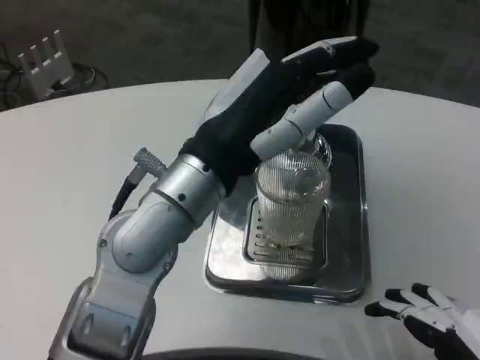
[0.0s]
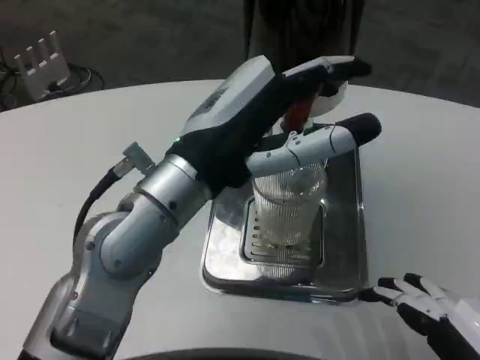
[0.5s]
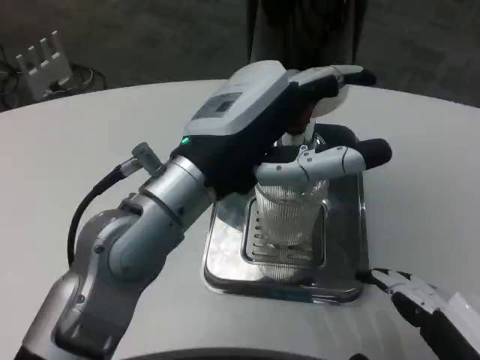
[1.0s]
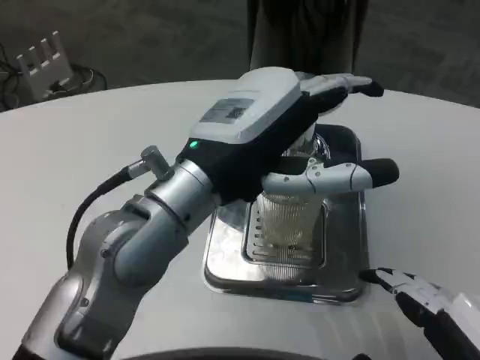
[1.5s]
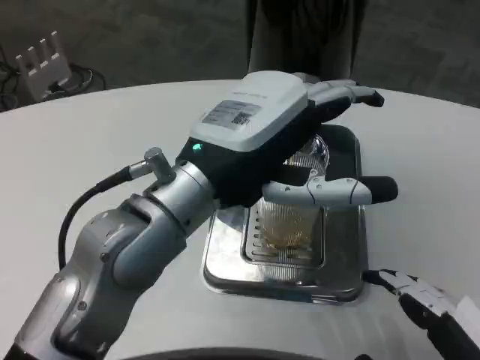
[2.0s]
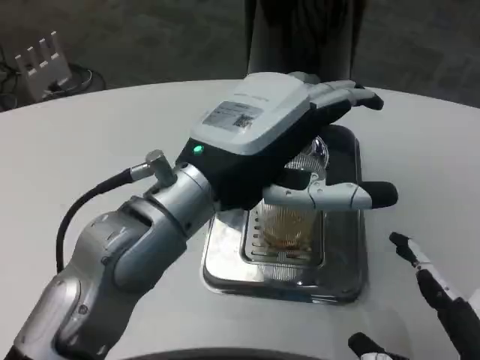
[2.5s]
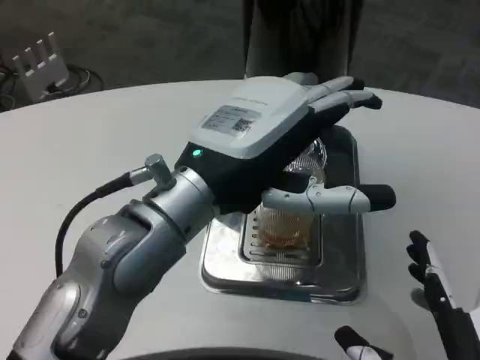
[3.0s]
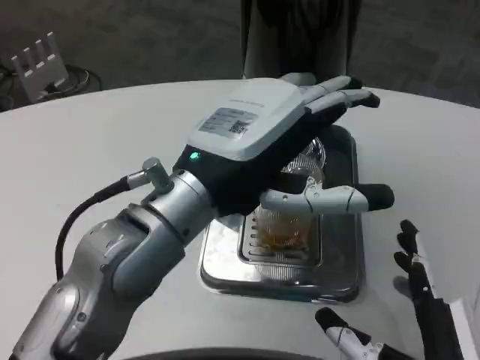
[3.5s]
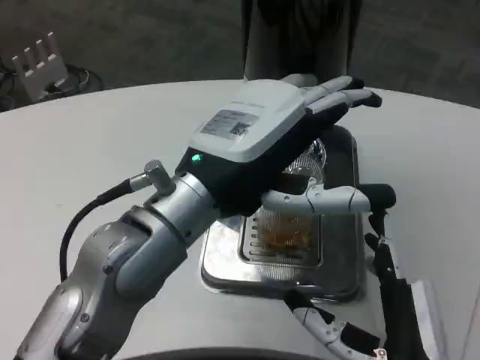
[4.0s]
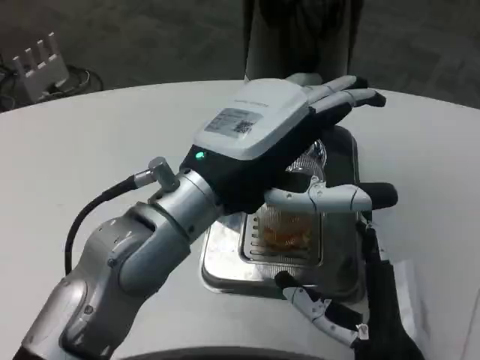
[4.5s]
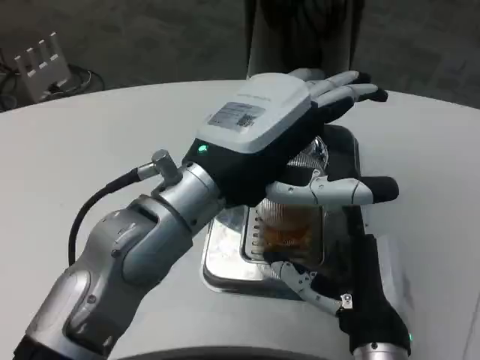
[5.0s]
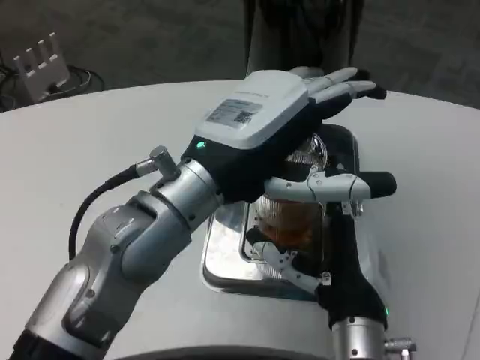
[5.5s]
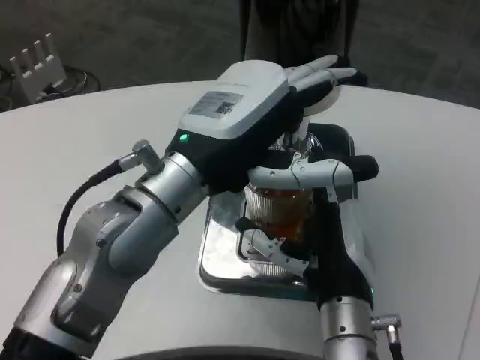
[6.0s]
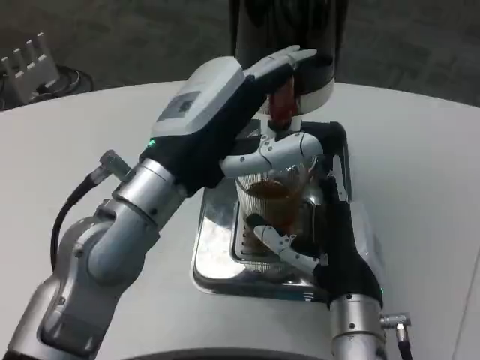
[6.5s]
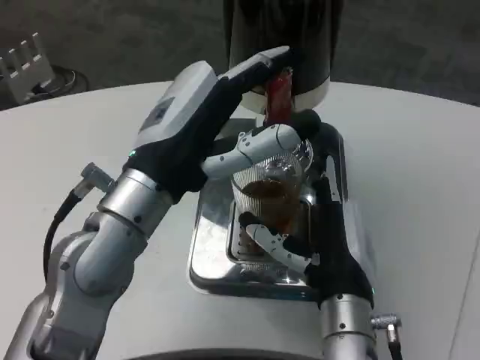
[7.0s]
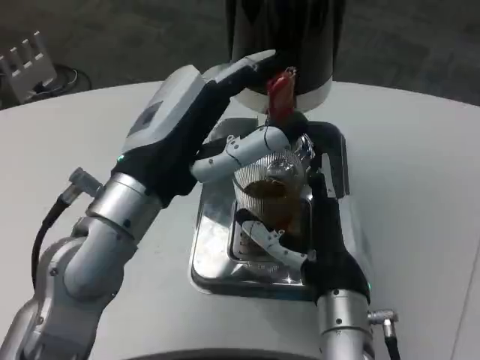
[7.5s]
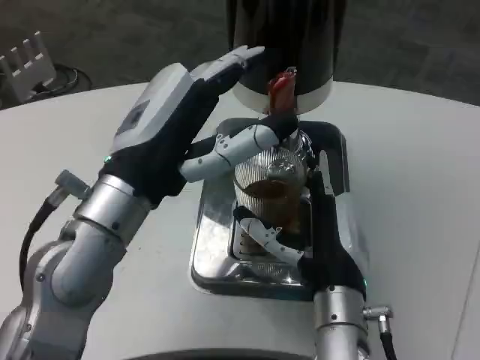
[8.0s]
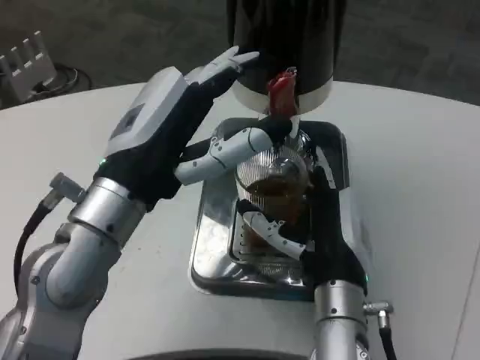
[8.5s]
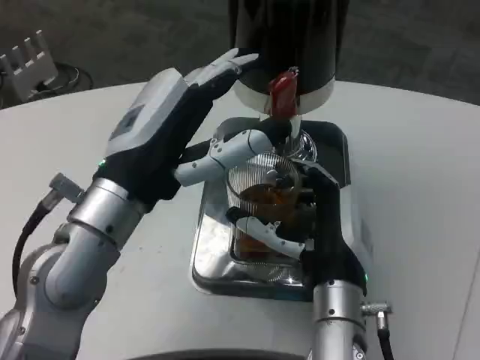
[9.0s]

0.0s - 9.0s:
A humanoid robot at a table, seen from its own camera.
Task of the whole recording: Grasp the cup under the faucet to collect the drink, then remove the cup.
2.0s - 4.5s: The right hand goes some 15 cm to the left, forward and downward.
4.5s - 7.0s: The right hand moves forward, some 5 cm.

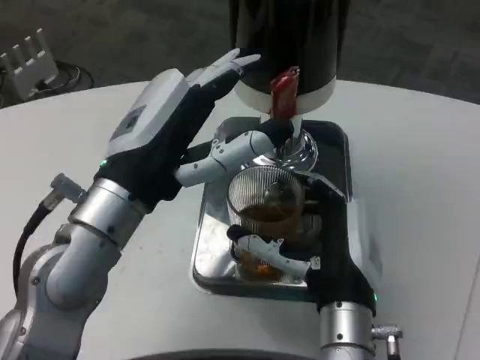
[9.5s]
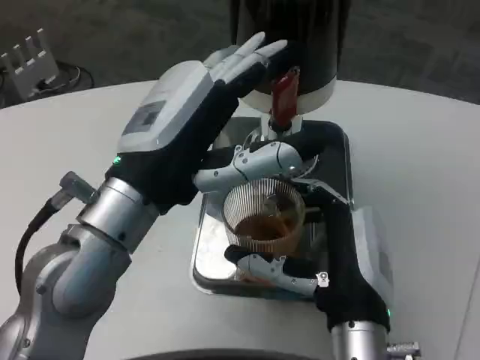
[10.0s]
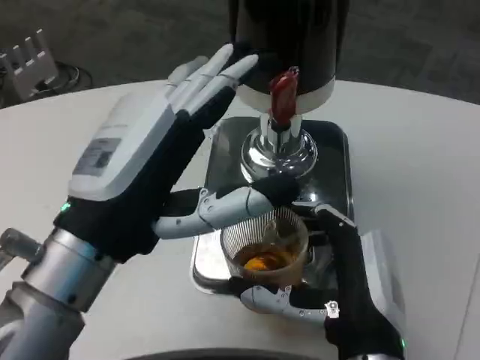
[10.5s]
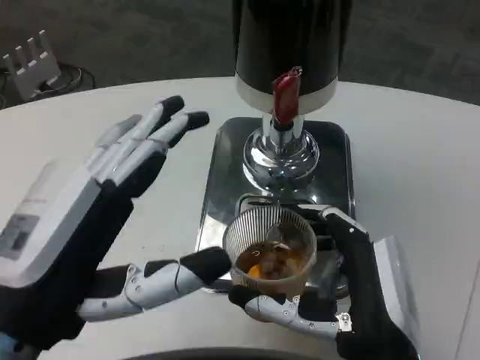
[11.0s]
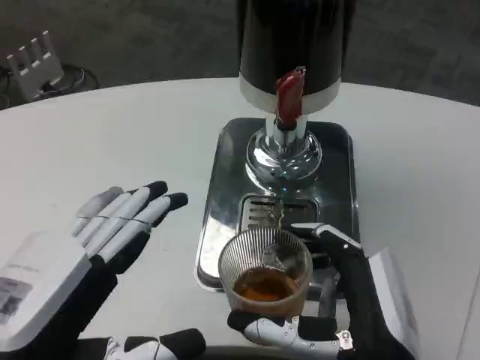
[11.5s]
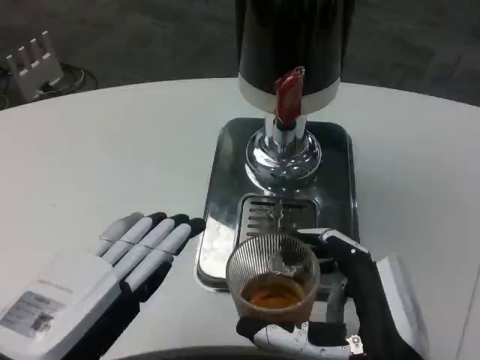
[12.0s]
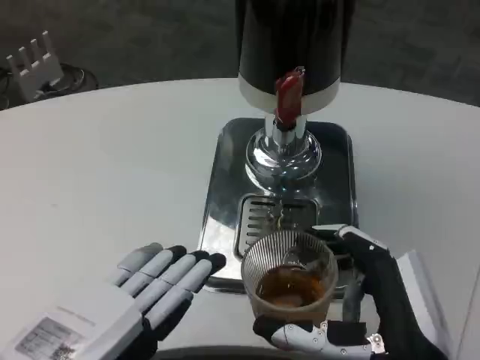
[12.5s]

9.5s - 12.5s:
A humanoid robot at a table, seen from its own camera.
Task of the whole recording: Grasp the cup under the faucet to collect the drink, then remove the cup.
9.5s - 11.0s: The left hand goes some 15 cm backward and to the left. The right hand heads backward, covering roughly 5 cm.

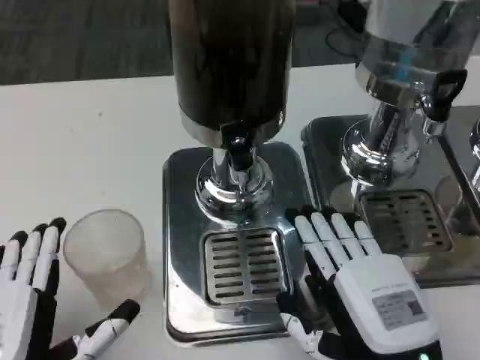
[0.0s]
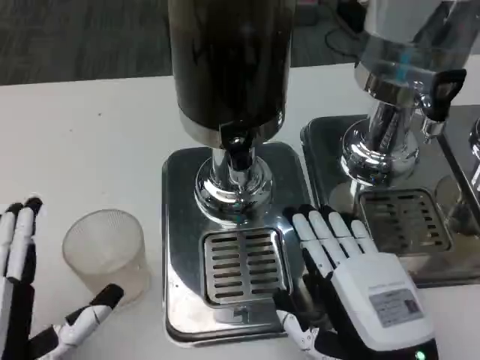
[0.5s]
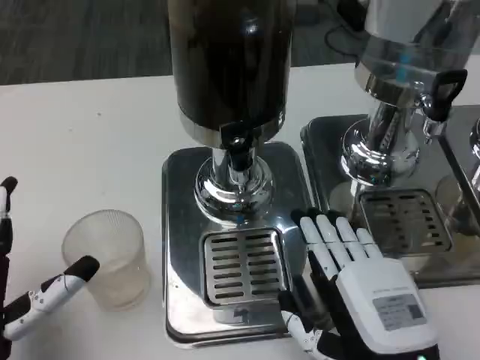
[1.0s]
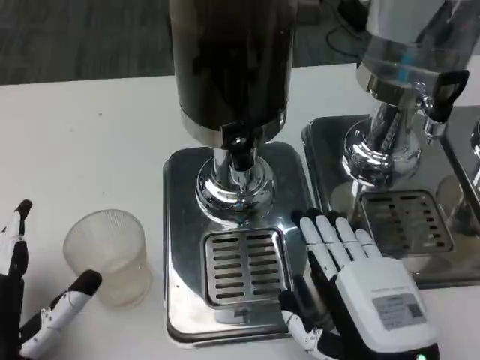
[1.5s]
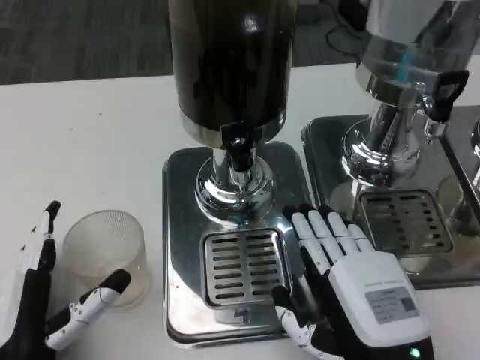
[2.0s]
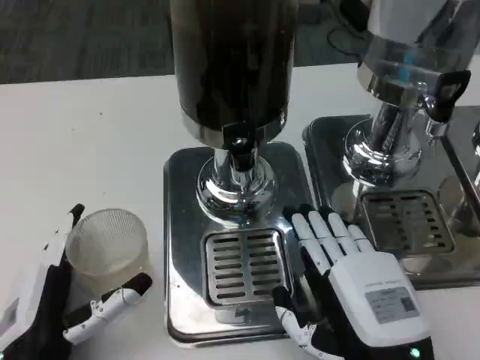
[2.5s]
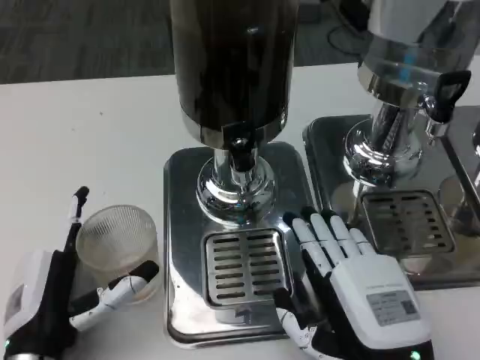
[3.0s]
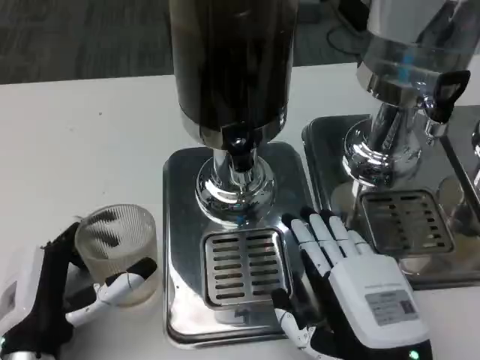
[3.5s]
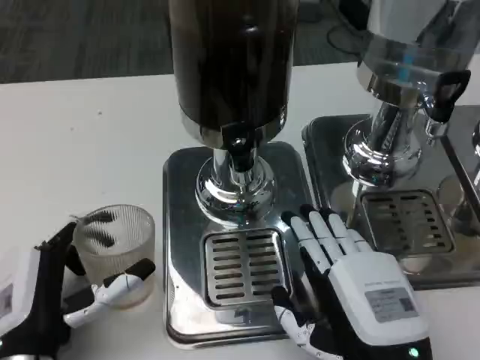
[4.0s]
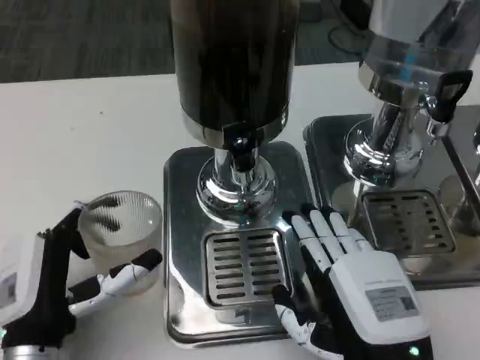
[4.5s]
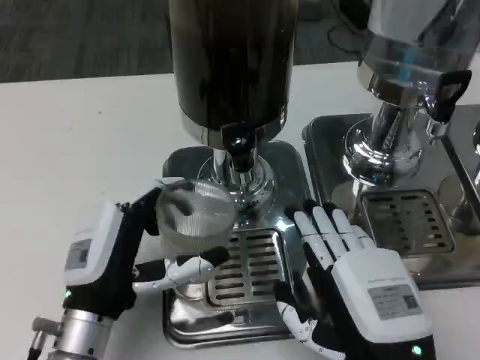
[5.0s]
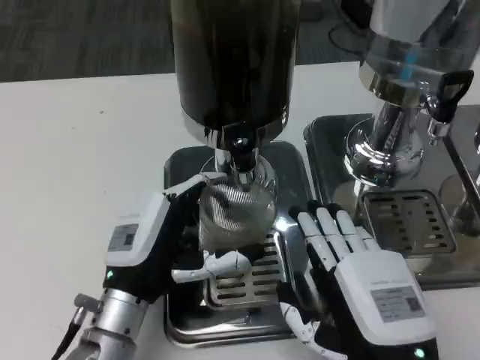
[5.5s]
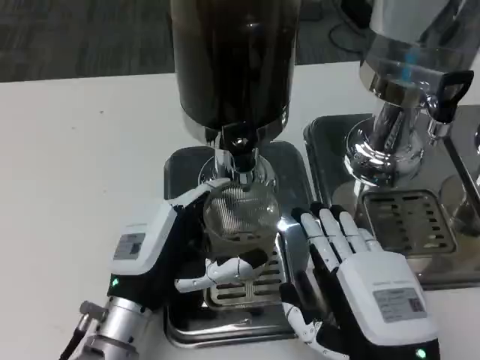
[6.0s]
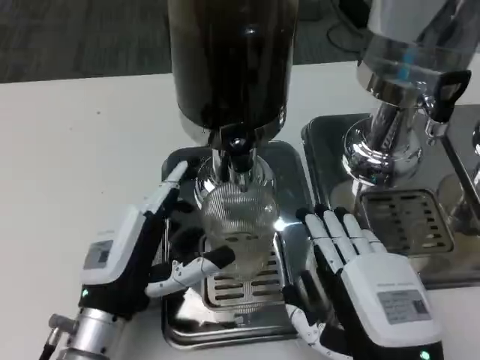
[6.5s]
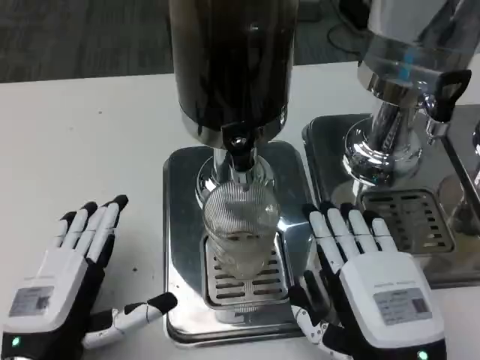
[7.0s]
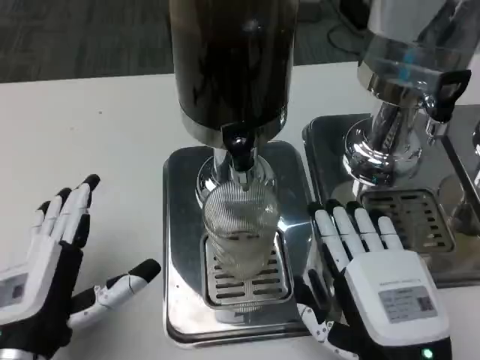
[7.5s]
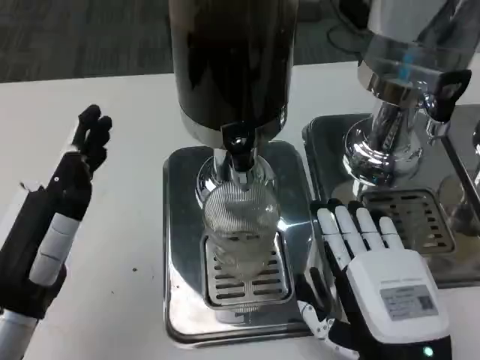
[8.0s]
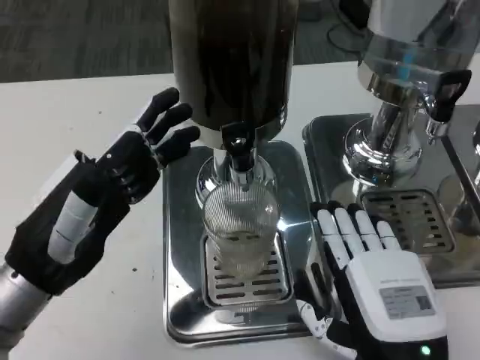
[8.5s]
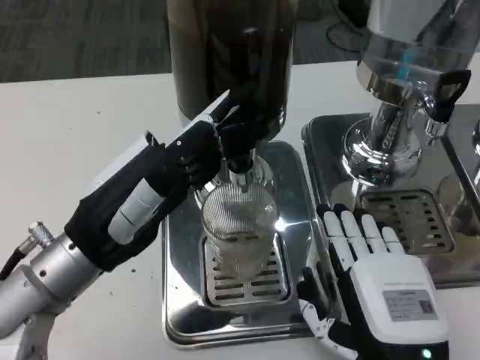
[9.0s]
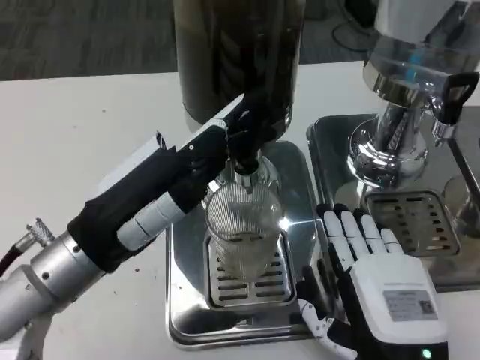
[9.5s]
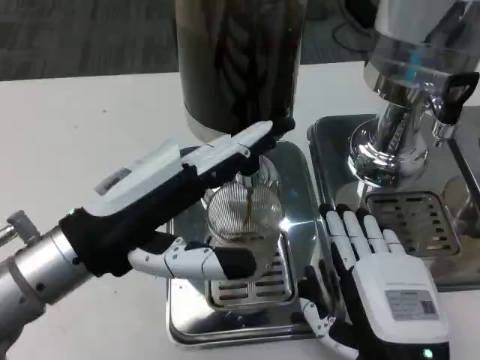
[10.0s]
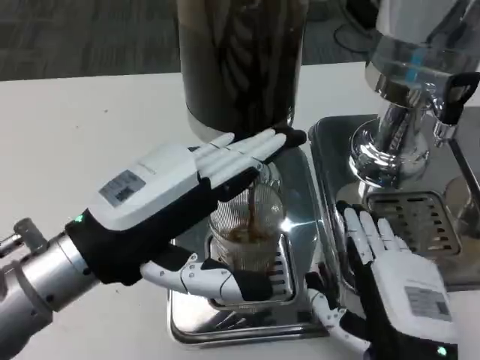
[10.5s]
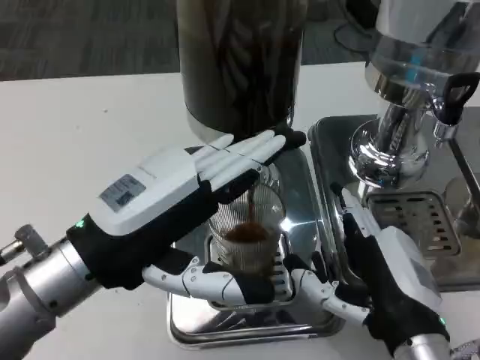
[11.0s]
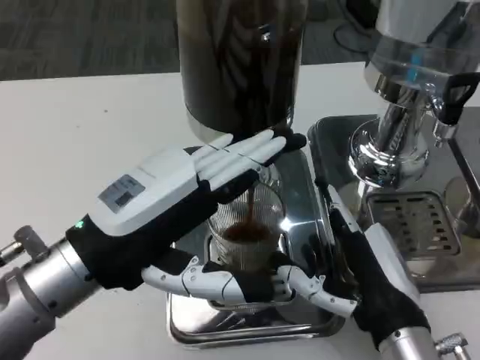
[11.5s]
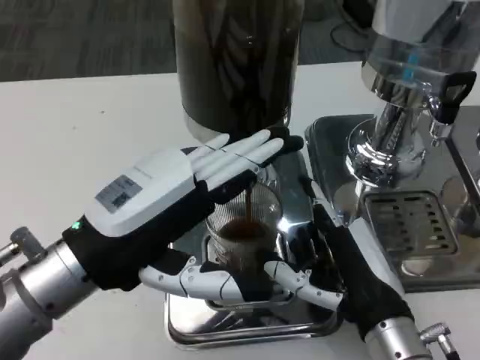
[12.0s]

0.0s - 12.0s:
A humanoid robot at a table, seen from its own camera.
Task of the whole recording: Grasp the cup under the faucet to collect the drink, then remove the cup.
0.0s - 2.0s: The left hand shifts some 5 cm downward.
2.0s - 4.0s: The hands stay close to where they were, moving slightly.
4.0s - 6.0s: The left hand shifts about 10 cm to the right and forward.
6.0s - 8.0s: The left hand goes roughly 10 cm to the left and upward.
8.0s - 10.0s: The left hand travels upward by some 10 cm.
10.0s - 12.0s: The right hand shifts some 5 cm forward.

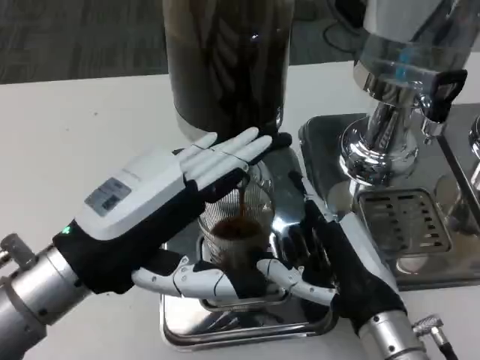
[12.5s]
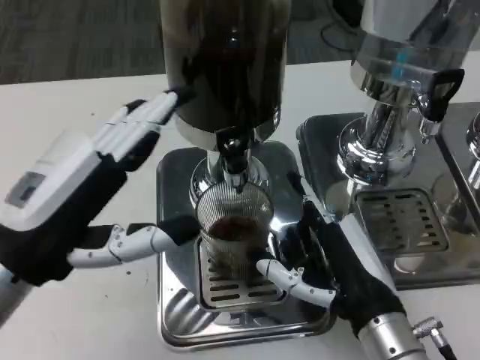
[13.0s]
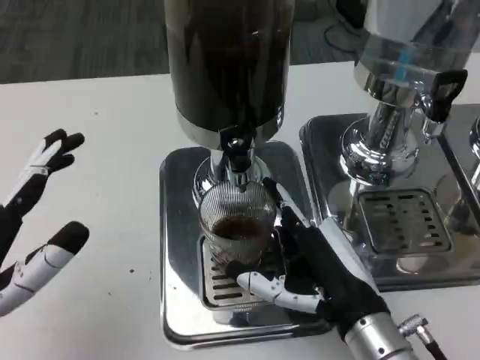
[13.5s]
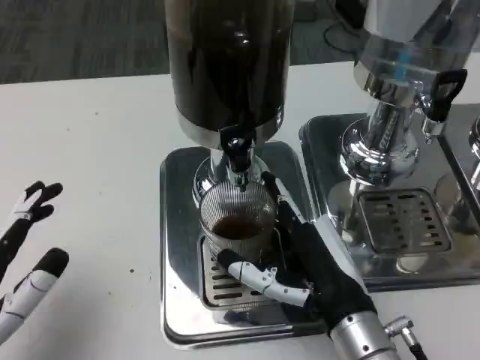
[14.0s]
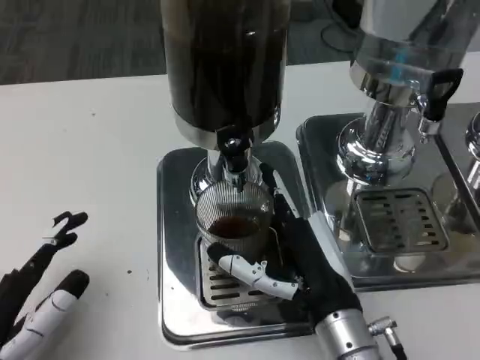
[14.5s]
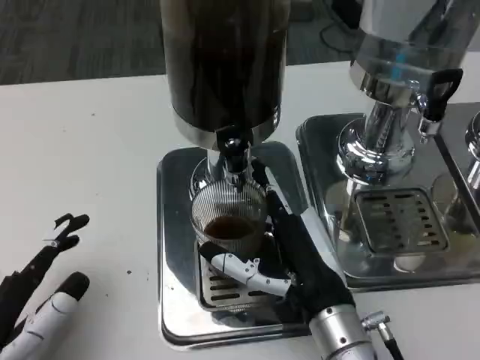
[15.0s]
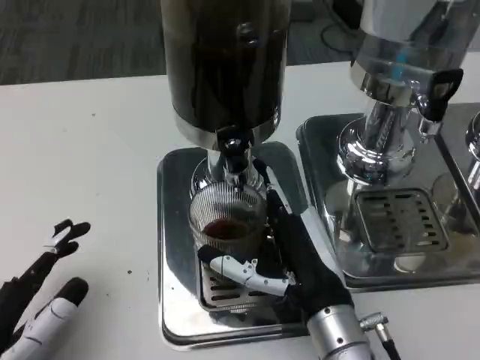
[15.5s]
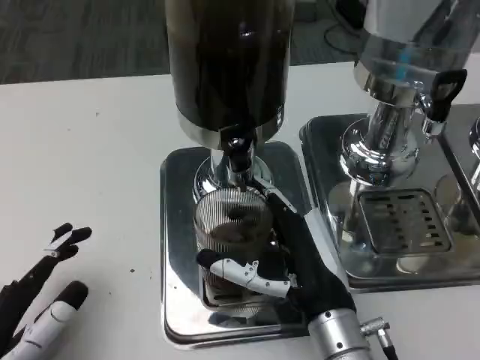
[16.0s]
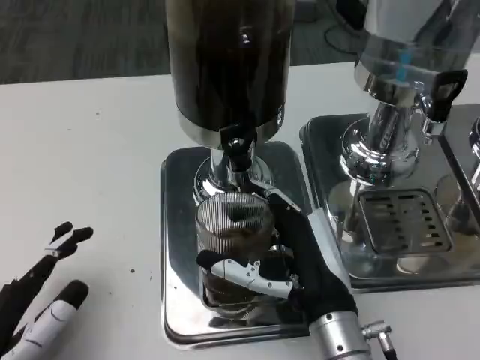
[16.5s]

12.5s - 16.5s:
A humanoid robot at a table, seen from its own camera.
Task of the whole recording: Grasp the cup under the faucet to collect the drink, then remove the cup.
12.5s - 14.5s: The left hand moves downward, backward and to the left, some 15 cm.
14.5s - 16.5s: The hands make only small movements.
